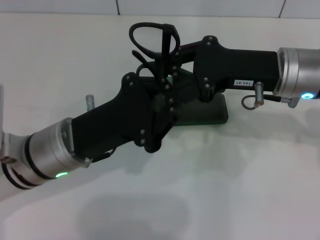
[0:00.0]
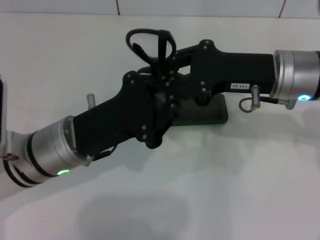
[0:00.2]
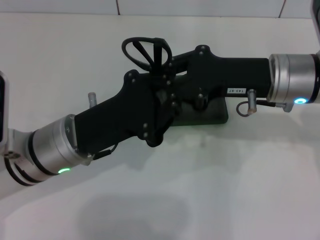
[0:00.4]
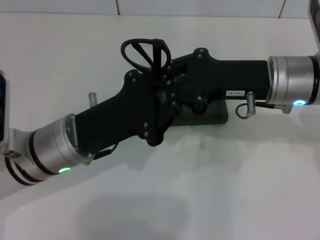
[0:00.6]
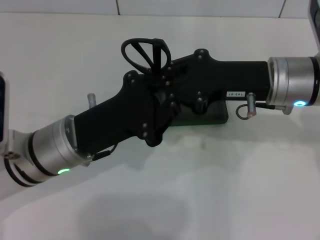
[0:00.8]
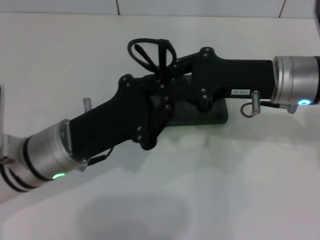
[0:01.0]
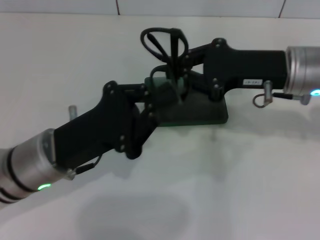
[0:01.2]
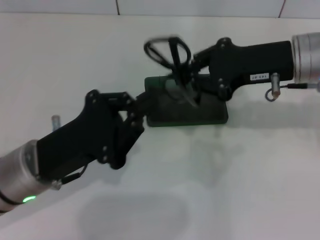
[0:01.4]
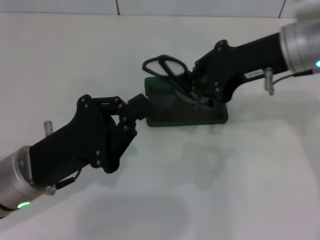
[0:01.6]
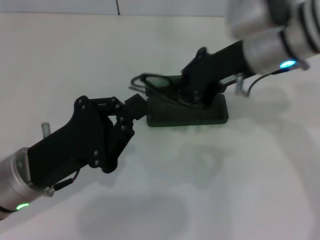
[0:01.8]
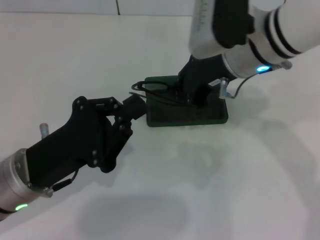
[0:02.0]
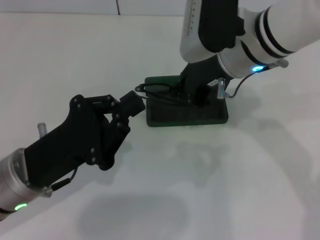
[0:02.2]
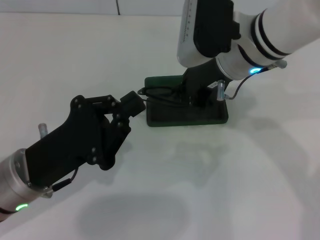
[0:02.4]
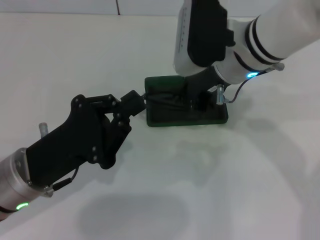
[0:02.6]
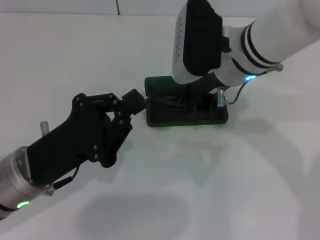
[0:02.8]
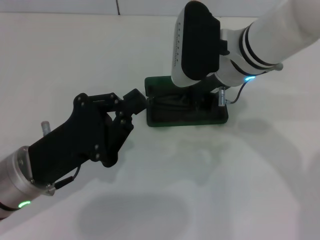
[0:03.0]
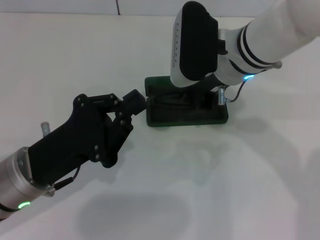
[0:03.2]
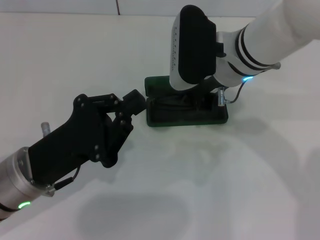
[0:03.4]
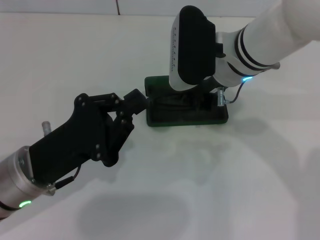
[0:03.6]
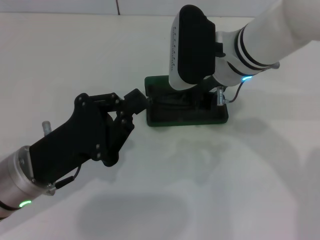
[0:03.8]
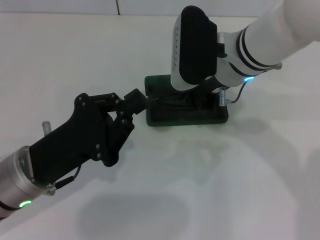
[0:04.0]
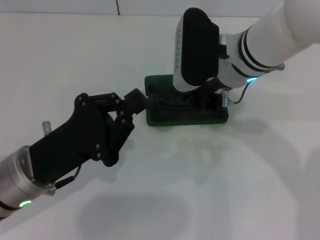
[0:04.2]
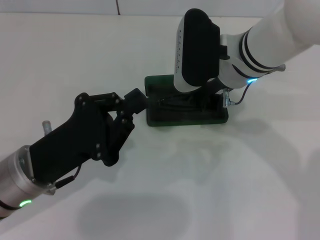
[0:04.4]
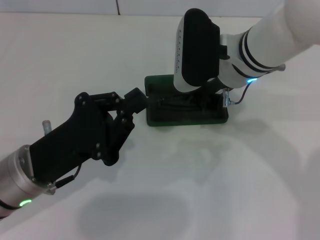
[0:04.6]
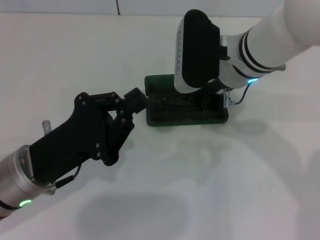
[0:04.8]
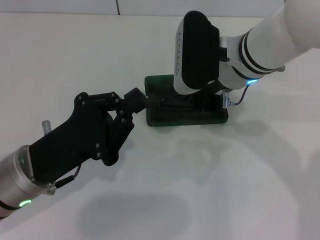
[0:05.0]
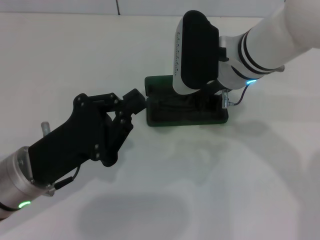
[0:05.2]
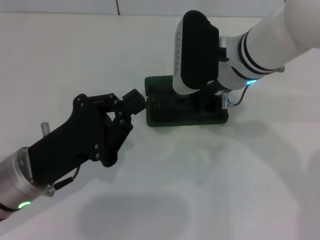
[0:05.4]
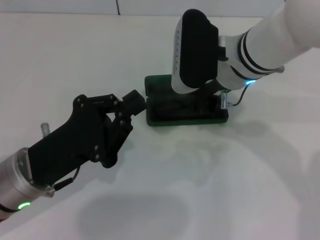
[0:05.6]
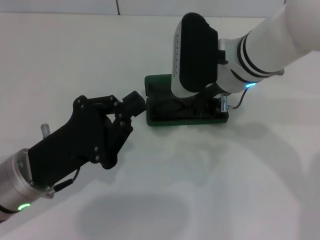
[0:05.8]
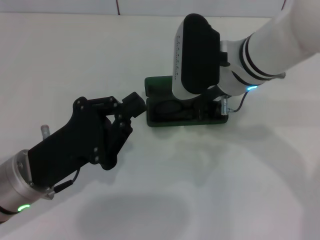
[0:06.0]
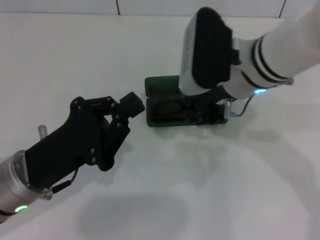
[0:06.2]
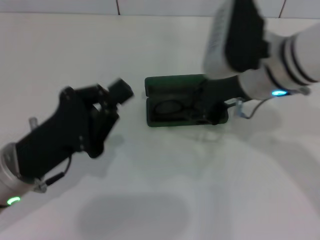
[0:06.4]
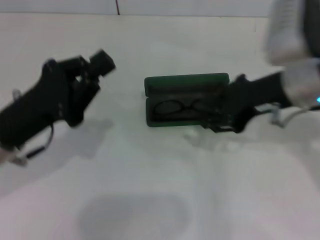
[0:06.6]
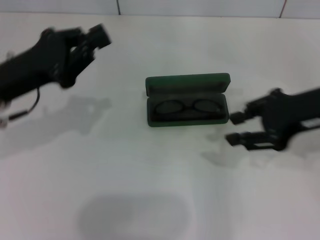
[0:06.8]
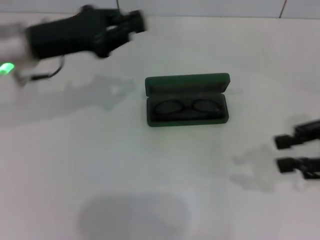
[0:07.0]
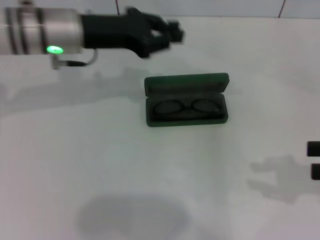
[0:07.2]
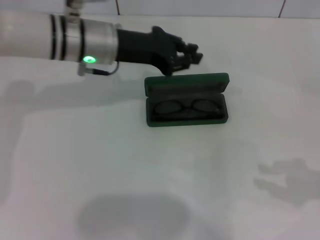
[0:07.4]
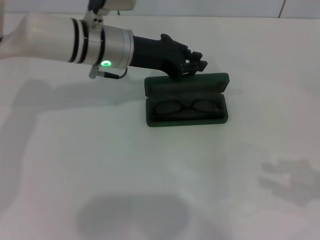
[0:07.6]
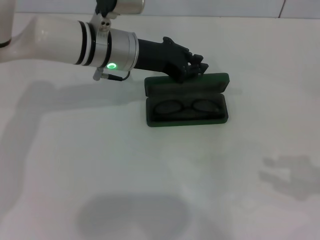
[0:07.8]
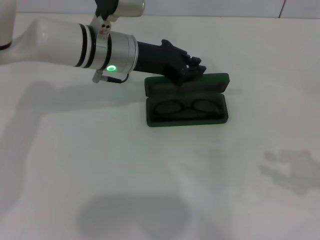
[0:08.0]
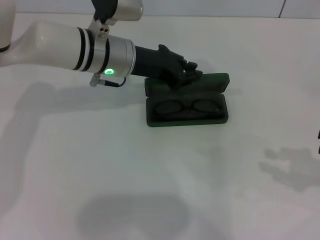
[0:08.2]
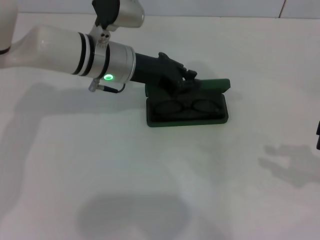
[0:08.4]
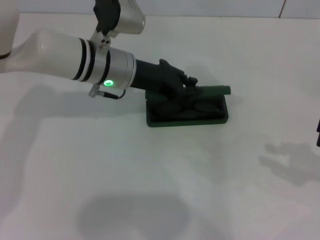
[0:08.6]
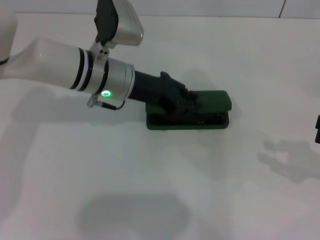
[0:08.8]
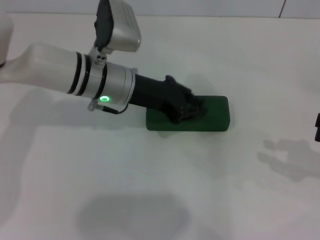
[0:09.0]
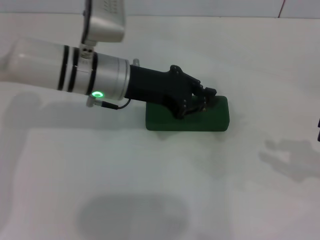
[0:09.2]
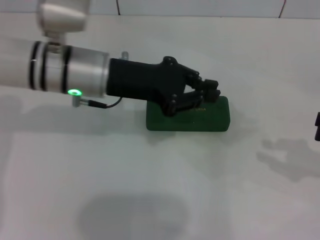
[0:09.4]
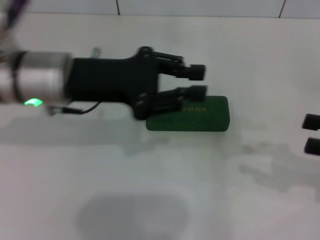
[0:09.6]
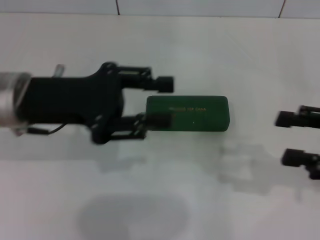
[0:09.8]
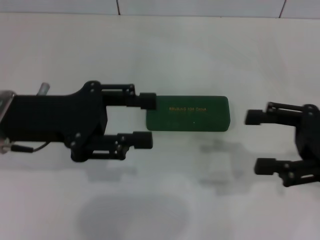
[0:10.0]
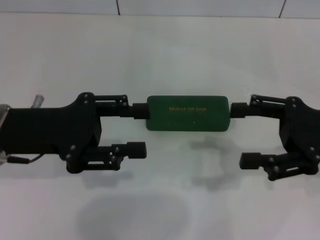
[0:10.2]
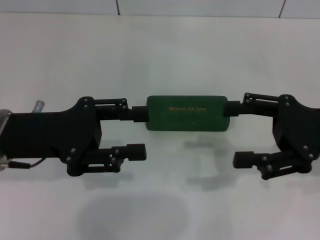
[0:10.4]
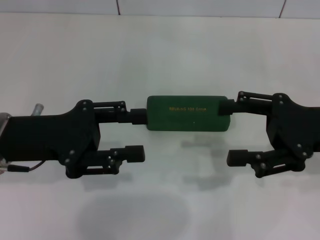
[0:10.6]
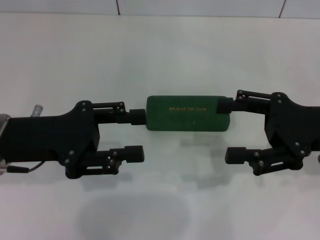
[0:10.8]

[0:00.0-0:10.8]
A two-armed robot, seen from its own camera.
Step, 0:01.0 to 0:05.8: Put the glasses into the case with your right hand.
Step, 0:06.0 to 0:08.8: Close the glasses case with your left hand.
0:00.0 to 0:01.6: The right gripper heads upward, covering approximately 5 cm. Meanwhile the left gripper ends up about 5 cm from where it was.
0:01.6 to 0:03.0: The right gripper heads to the left, covering about 10 cm.
0:03.0 to 0:04.6: The two grippers keep their place.
0:04.6 to 0:06.2: The right gripper opens its fingers.
0:06.2 to 0:07.8: The right gripper goes approximately 30 cm to the right and backward, while the left gripper travels forward and to the right by some 20 cm.
0:07.8 to 0:09.2: The grippers move only a little.
0:09.2 to 0:10.8: The right gripper goes about 10 cm to the left, and opens; the left gripper goes approximately 15 cm to the left and backward, and opens up.

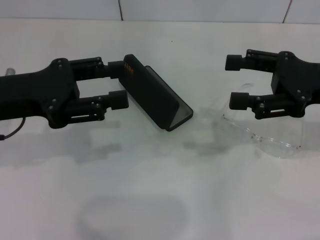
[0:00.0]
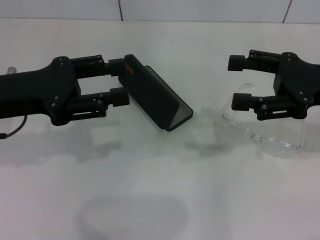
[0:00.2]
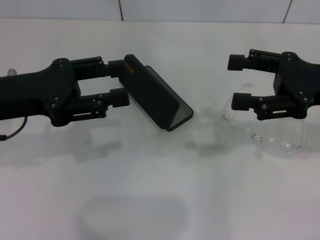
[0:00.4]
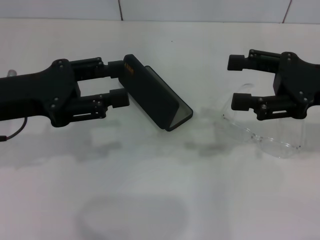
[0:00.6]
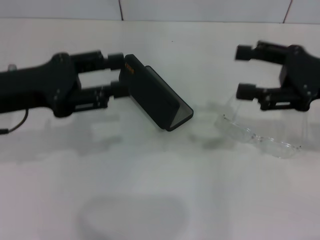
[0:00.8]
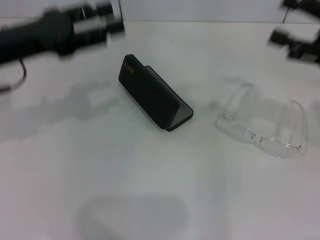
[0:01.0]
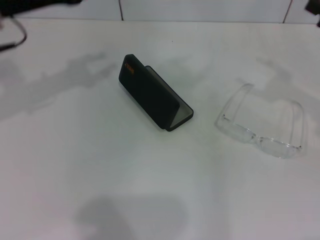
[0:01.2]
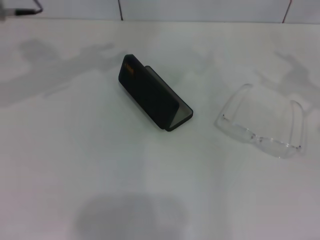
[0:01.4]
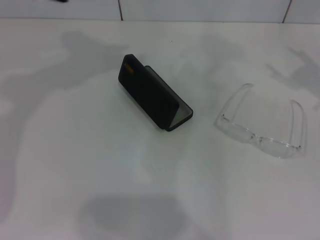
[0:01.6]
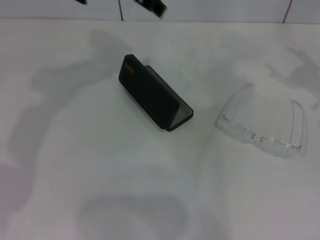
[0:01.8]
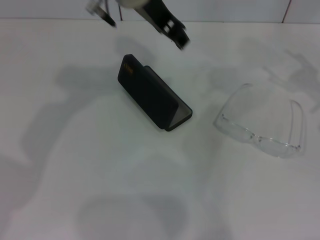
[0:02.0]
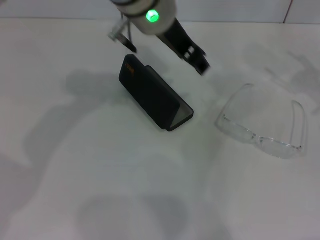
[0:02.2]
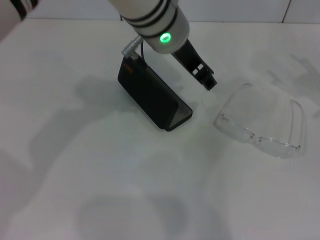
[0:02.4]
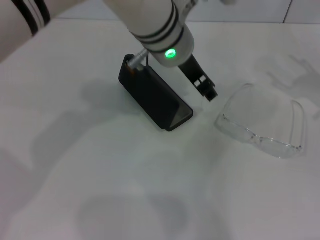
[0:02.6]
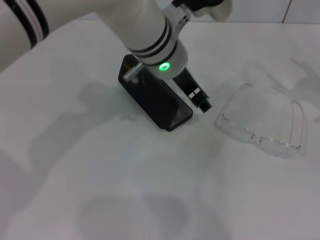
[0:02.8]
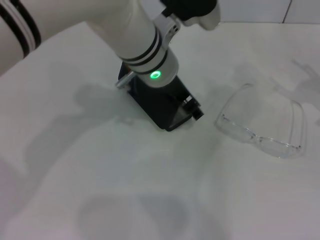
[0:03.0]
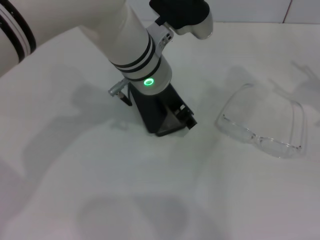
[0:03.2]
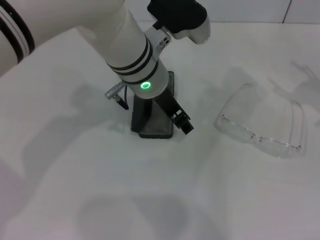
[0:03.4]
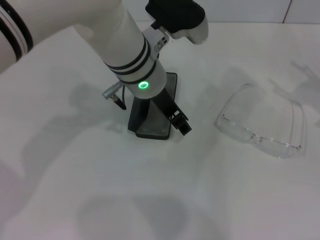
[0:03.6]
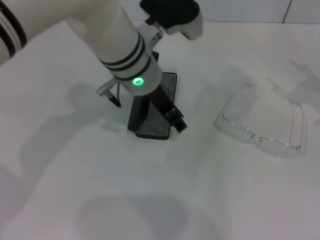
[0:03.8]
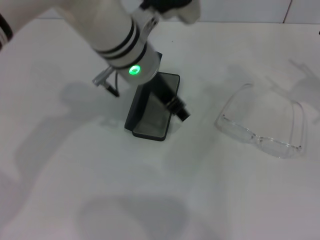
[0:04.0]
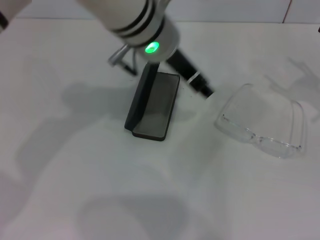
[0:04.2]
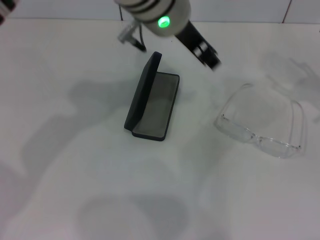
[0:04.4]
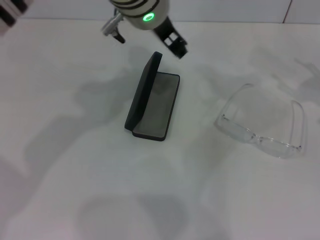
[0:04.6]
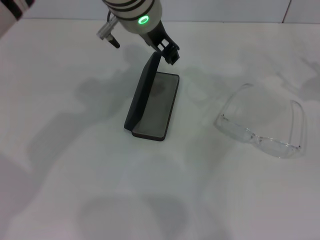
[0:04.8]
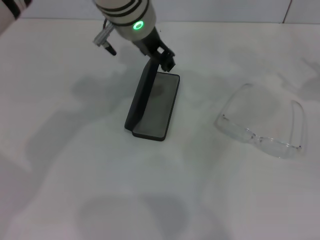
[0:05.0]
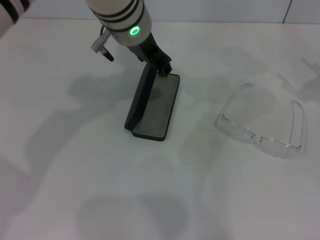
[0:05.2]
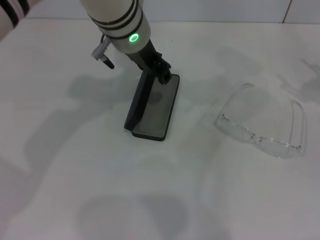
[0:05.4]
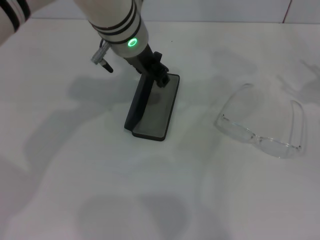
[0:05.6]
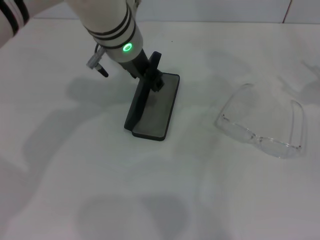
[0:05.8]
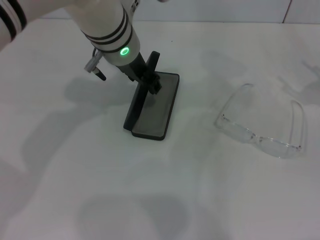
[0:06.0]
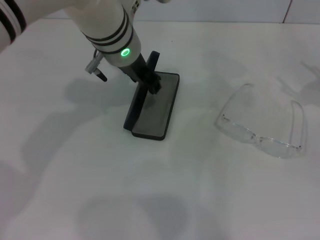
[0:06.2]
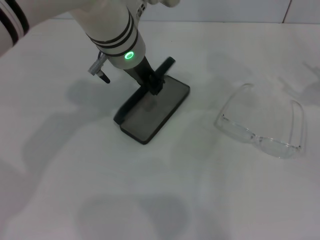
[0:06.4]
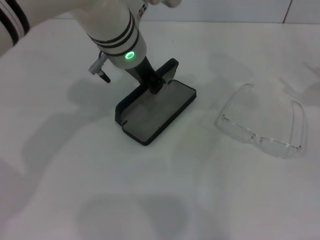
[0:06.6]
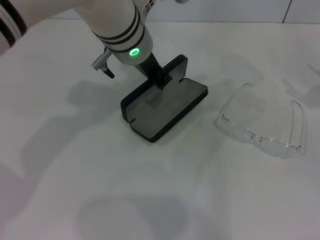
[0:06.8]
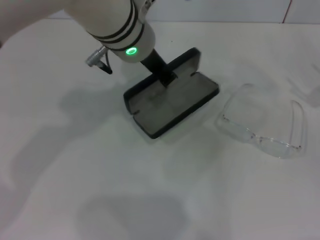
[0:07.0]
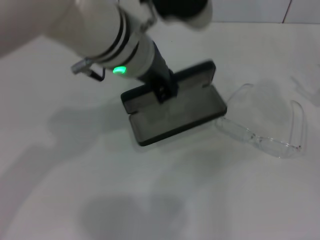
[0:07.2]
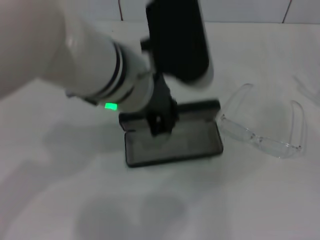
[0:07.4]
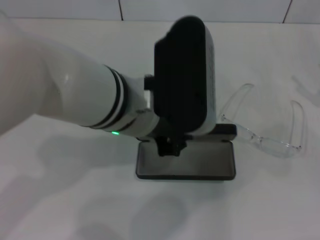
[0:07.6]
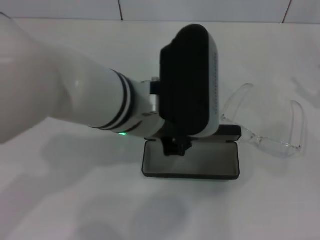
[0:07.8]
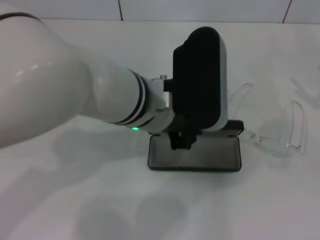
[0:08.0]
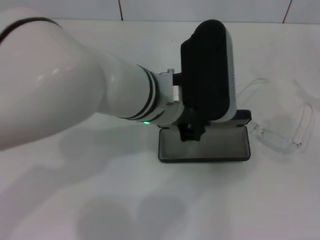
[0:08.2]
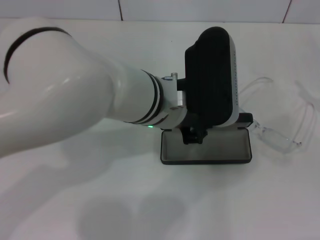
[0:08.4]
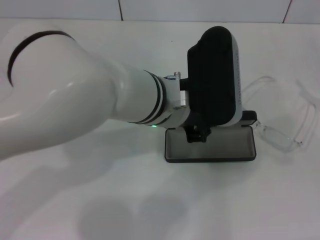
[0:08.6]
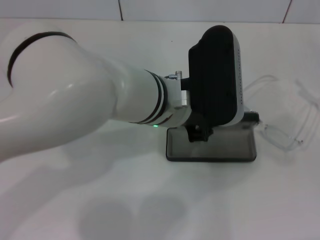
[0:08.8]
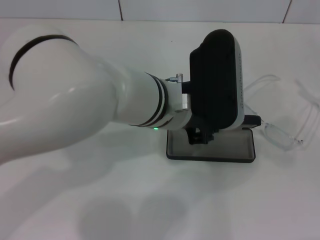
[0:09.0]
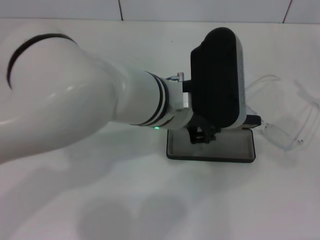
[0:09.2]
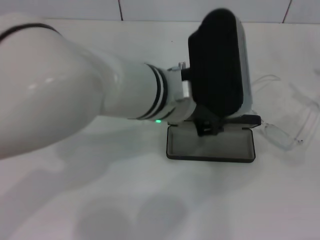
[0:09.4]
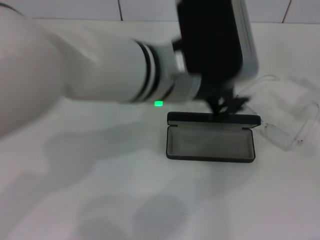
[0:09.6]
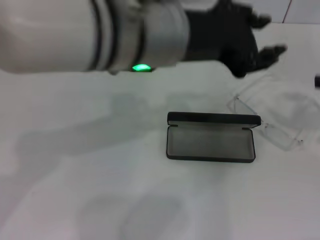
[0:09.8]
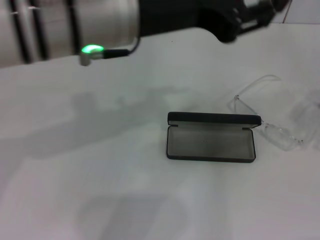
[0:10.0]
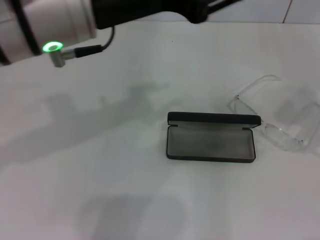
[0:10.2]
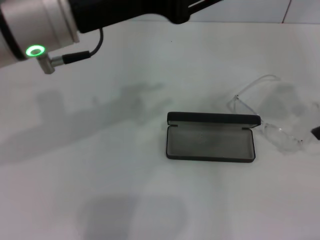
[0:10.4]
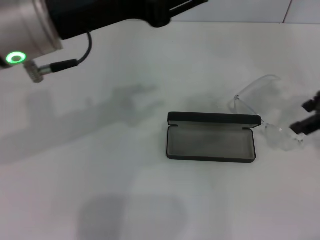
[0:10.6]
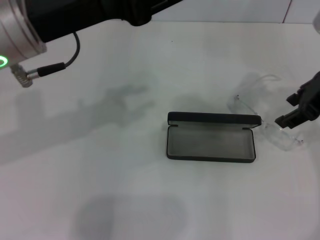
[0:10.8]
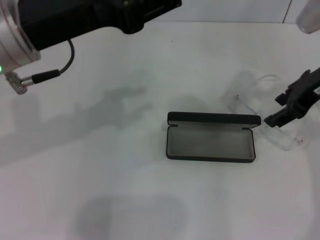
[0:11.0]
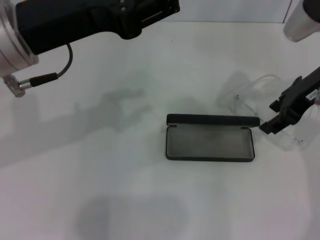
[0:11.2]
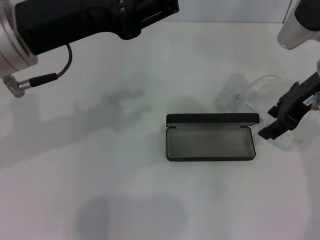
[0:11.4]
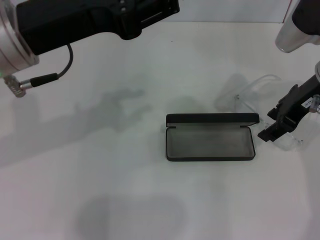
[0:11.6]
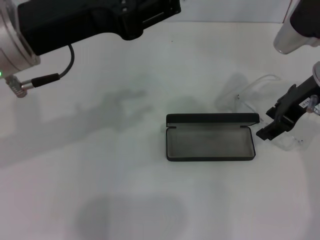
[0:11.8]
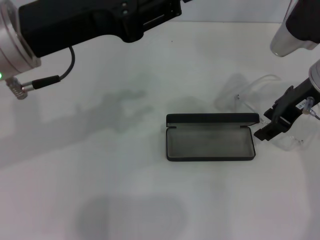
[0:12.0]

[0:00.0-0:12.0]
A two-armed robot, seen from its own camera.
Step, 0:00.0 to 0:06.4: Grab the glasses case with your left hand.
Step, 0:06.6 to 0:09.0: Place the glasses case in the center of the table with your left hand.
0:00.0 to 0:01.6: The right gripper moves to the right, roughly 10 cm. The left gripper goes about 20 cm forward, to the right and upward.
0:01.6 to 0:03.0: The left gripper travels downward and to the right by approximately 15 cm.
0:03.0 to 0:04.4: The left gripper is displaced upward by about 10 cm.
0:04.4 to 0:06.0: The left gripper is displaced downward by roughly 5 cm.
0:06.0 to 0:07.6: The left gripper travels backward by about 15 cm, and closes.
0:07.6 to 0:09.0: The left gripper changes place by approximately 5 cm.
0:09.0 to 0:10.4: The right gripper goes about 15 cm upward and to the left; the left gripper travels to the left and upward by roughly 15 cm.
0:10.4 to 0:12.0: The right gripper travels to the left, forward and downward by approximately 10 cm.
